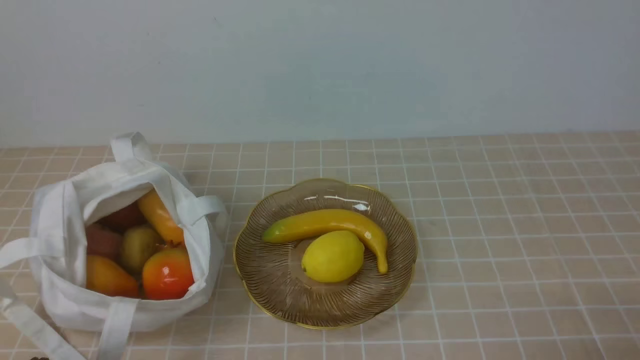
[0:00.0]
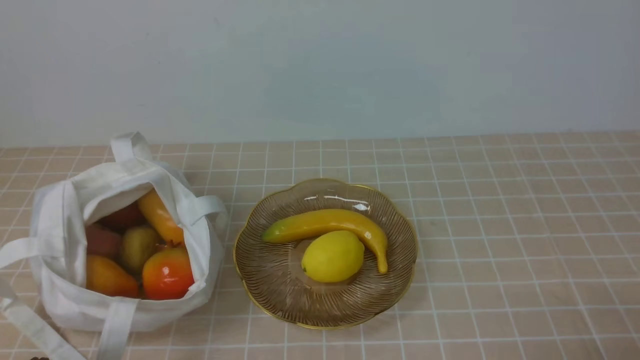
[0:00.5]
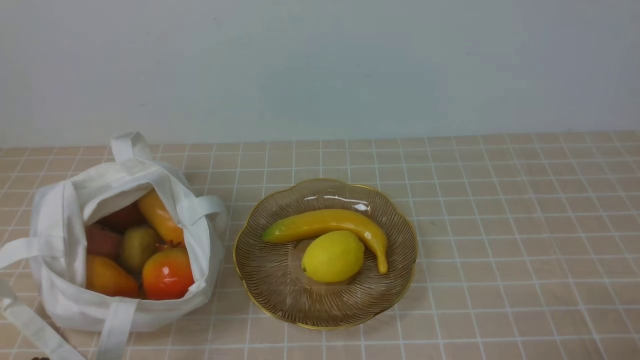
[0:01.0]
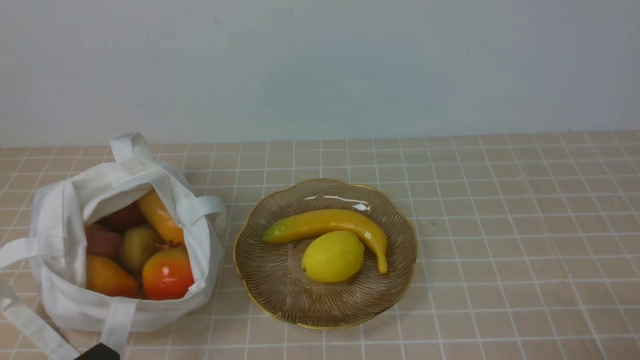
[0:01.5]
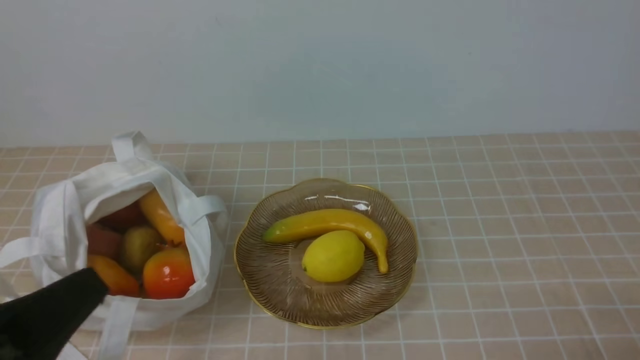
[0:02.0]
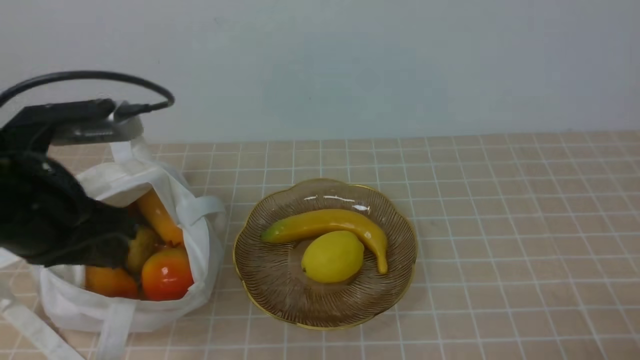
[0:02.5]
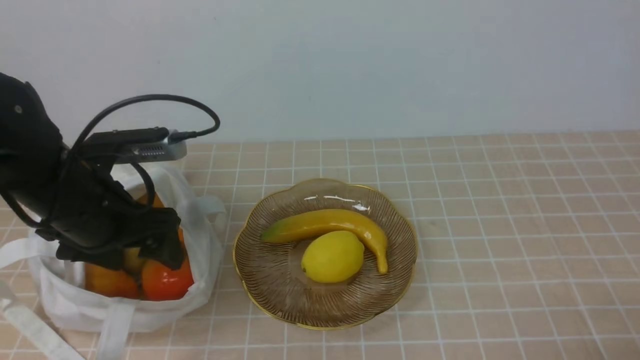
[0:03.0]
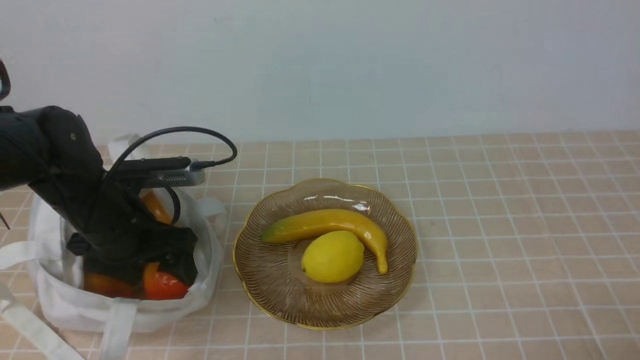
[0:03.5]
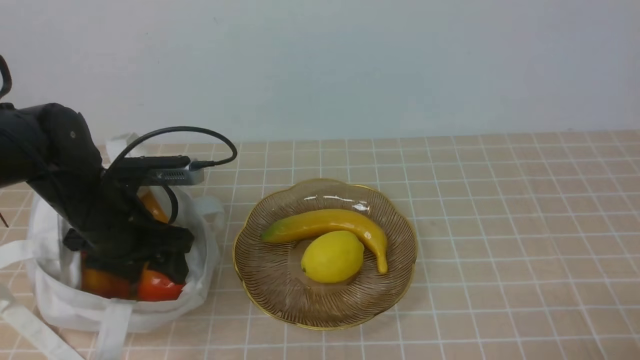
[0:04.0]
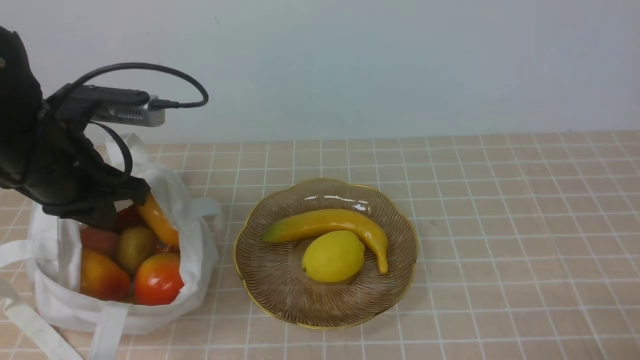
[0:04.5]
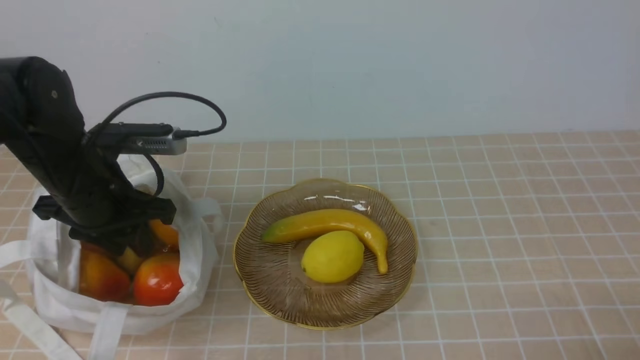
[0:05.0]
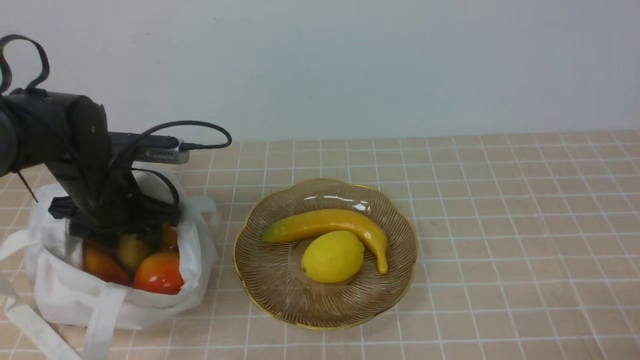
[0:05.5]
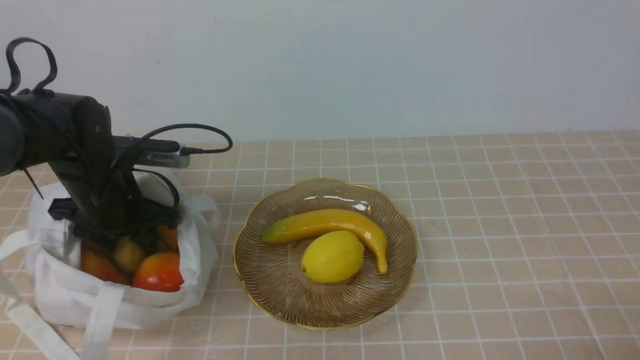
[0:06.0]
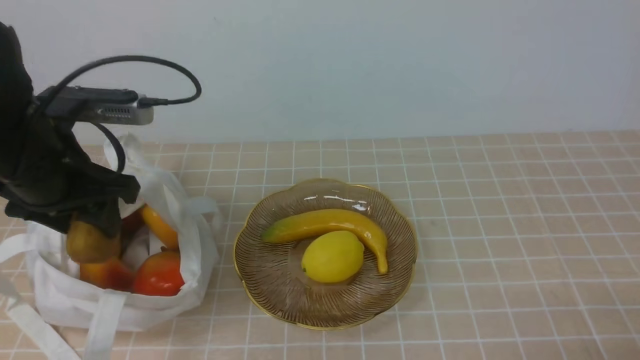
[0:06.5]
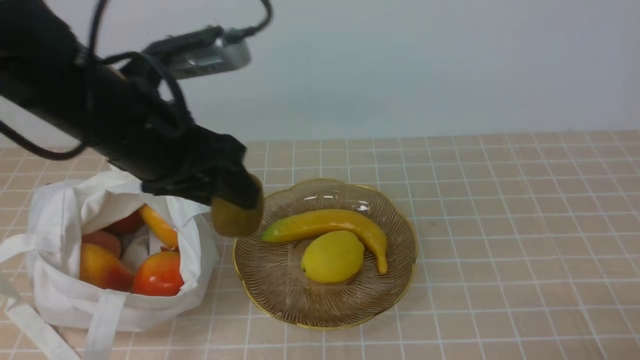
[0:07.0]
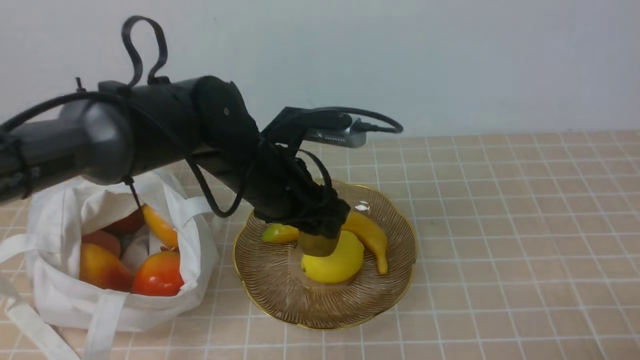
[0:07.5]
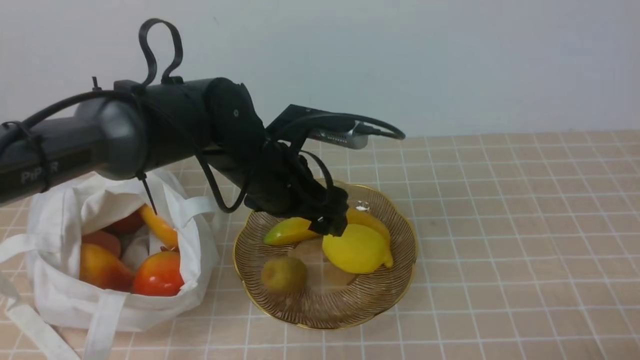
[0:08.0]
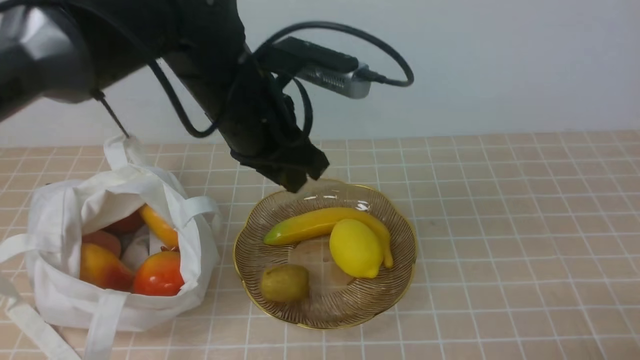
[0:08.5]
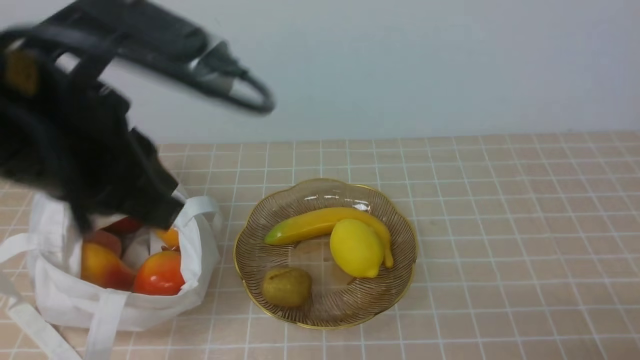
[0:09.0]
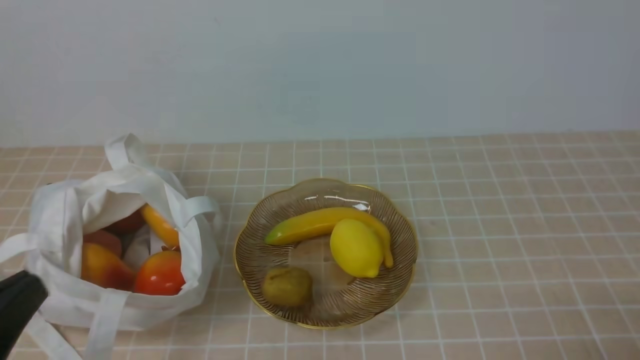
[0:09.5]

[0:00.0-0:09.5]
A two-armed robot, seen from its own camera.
Step, 0:00.0 to 0:06.0: use the left arm to grab a kiwi from the bag.
Step, 0:06.5 to 0:07.5: use the left arm to put the kiwi into the empty plate on the right.
0:02.0 to 0:04.0: The left gripper shifts roughly 25 cm forward, and opens up.
0:04.0 to 0:05.5: The left gripper moves roughly 5 cm upward and comes back, and closes and opens again.
0:05.5 to 0:07.5: The left gripper shifts some 15 cm to the right.
0:07.5 to 0:09.5: The left gripper moves backward and to the left, roughly 30 cm, and closes up.

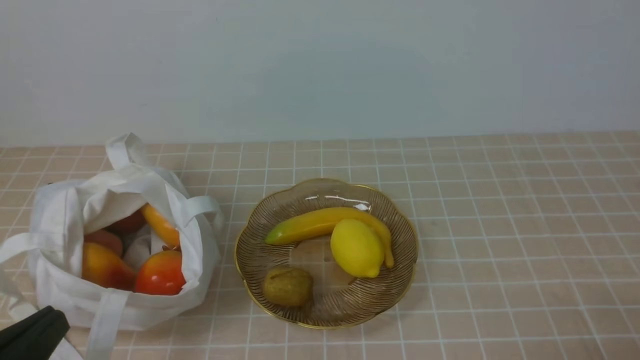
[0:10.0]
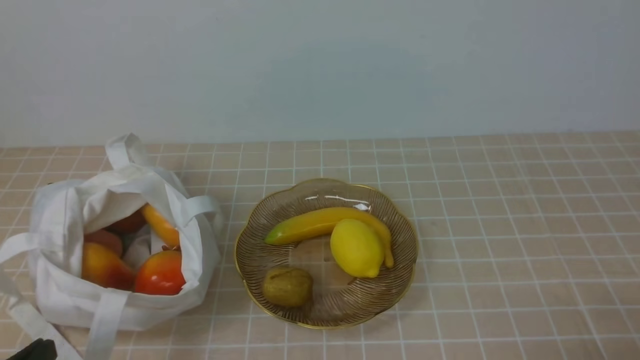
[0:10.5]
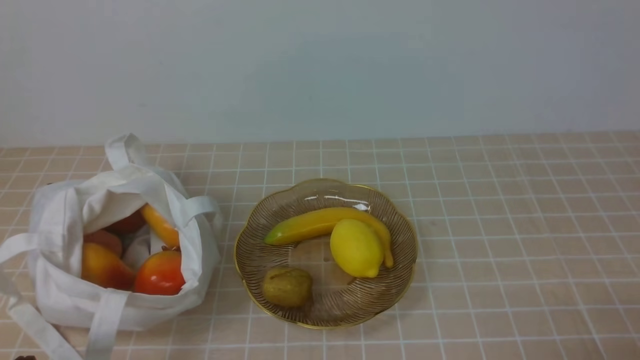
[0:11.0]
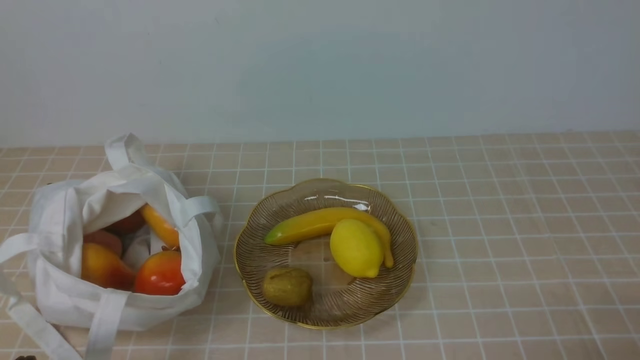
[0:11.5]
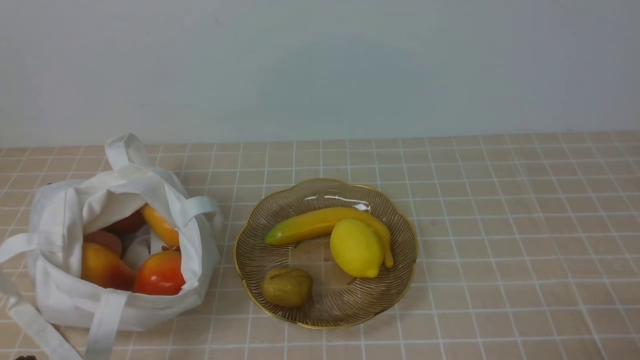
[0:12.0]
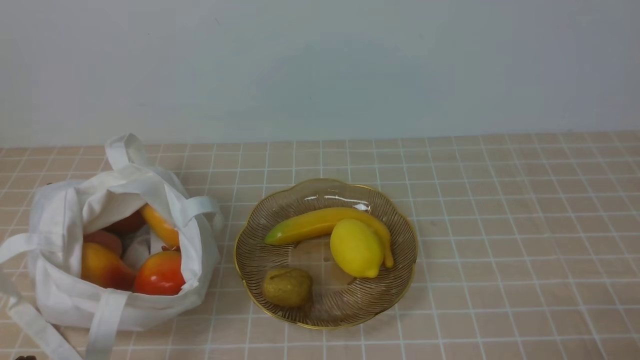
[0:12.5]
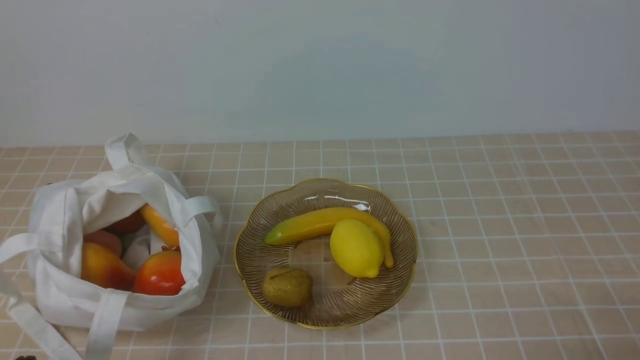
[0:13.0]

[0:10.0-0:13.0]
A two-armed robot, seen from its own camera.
0:10.0 to 0:11.5: The left gripper heads downward, covering about 10 cm.
0:11.5 to 0:13.0: Neither gripper changes place.
